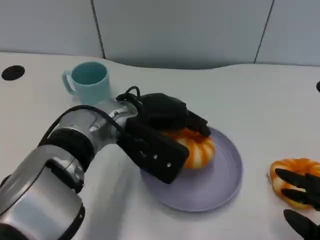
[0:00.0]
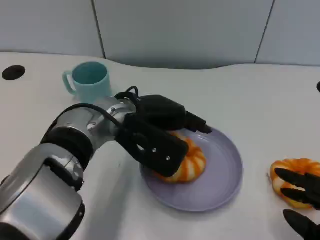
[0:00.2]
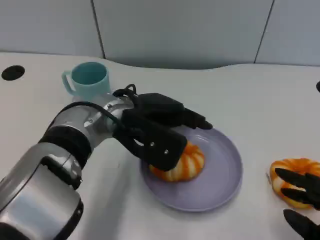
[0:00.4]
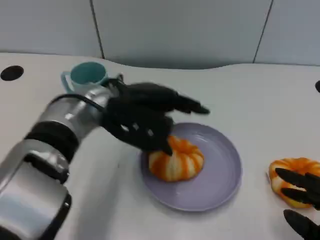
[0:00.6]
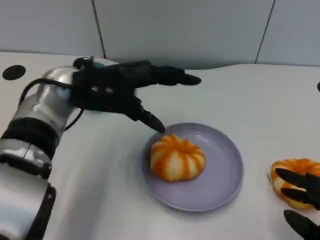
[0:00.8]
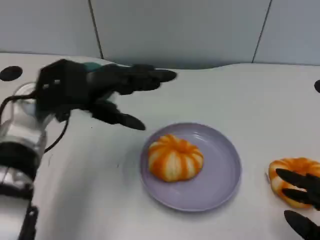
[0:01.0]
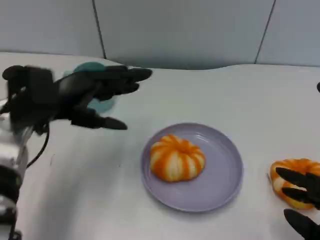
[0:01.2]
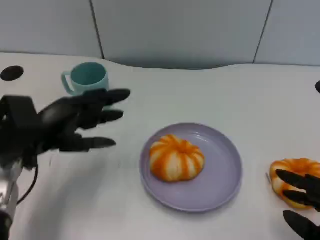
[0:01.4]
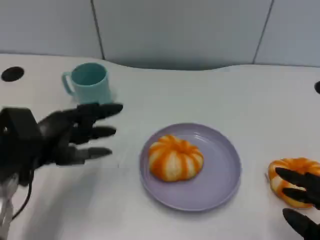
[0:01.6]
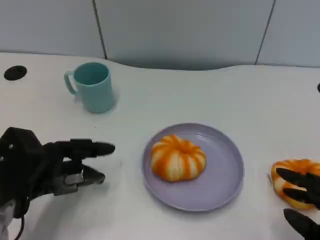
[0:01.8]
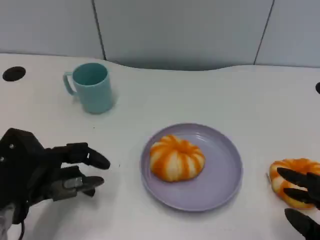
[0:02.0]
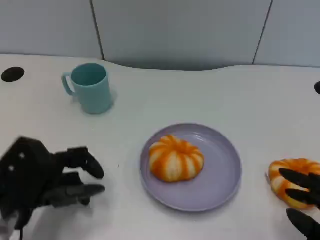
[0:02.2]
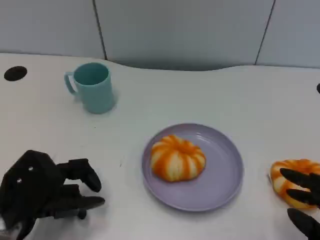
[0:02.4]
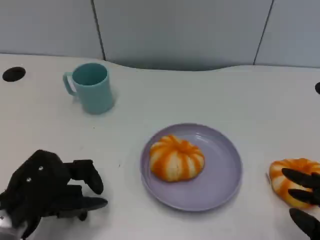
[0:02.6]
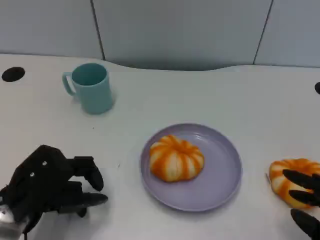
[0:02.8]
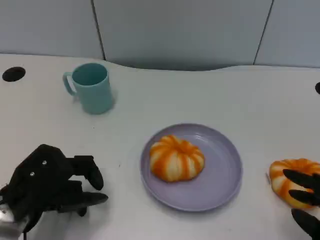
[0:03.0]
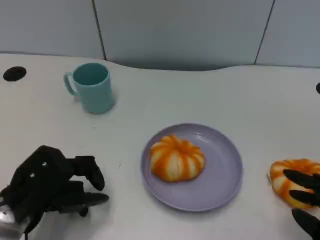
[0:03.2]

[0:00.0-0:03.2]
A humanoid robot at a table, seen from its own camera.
Task of the whole recording: Grasp the bread from the table and place it into the plate.
0:00.0 to 0:01.6: The left hand shifts about 20 cm to the left and backward.

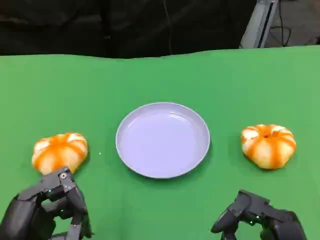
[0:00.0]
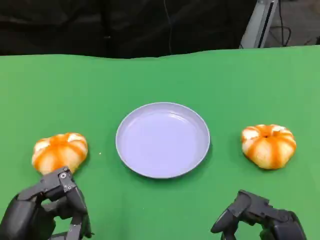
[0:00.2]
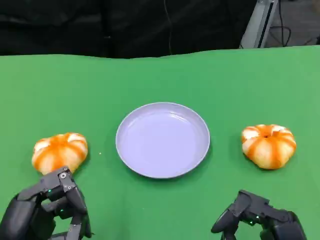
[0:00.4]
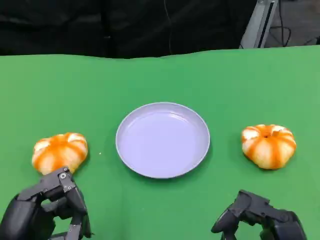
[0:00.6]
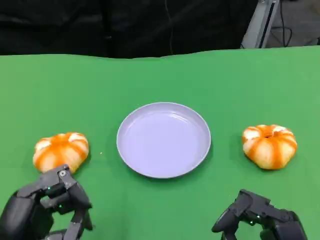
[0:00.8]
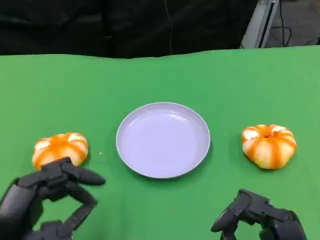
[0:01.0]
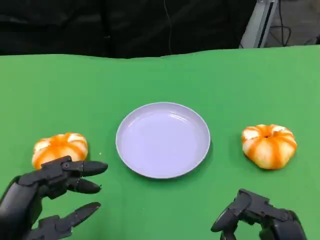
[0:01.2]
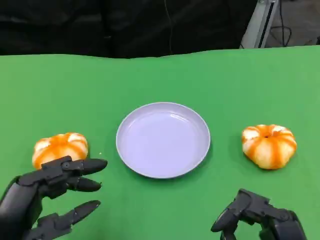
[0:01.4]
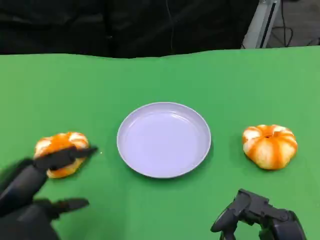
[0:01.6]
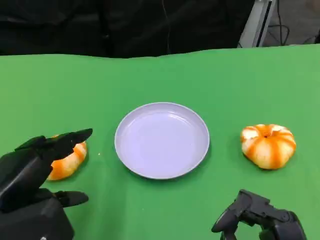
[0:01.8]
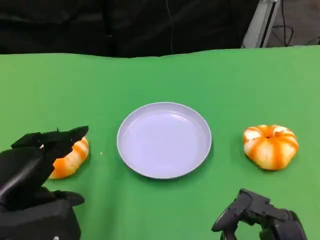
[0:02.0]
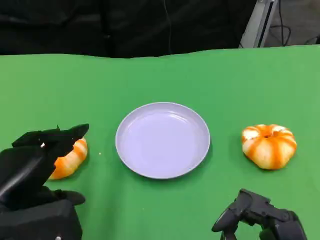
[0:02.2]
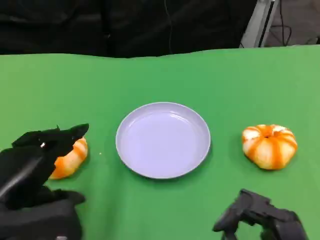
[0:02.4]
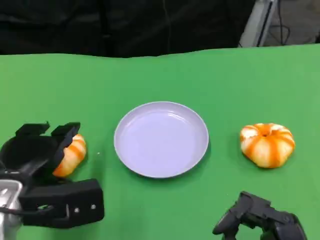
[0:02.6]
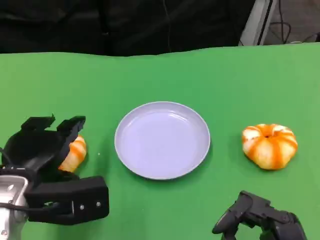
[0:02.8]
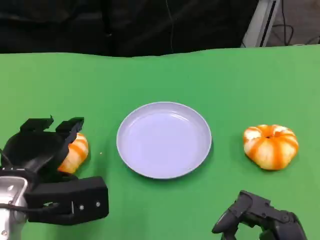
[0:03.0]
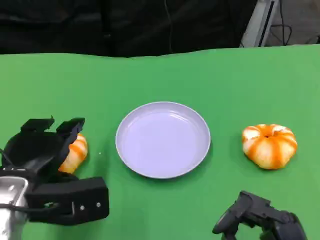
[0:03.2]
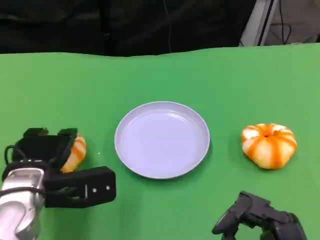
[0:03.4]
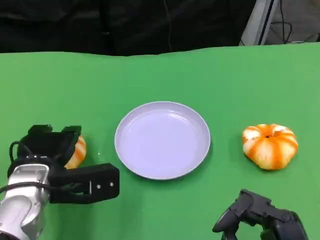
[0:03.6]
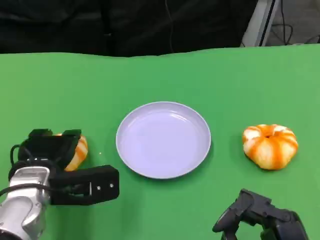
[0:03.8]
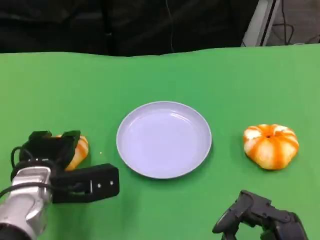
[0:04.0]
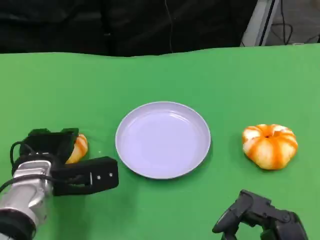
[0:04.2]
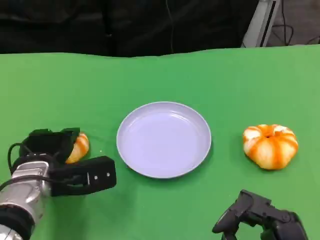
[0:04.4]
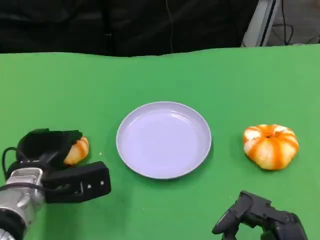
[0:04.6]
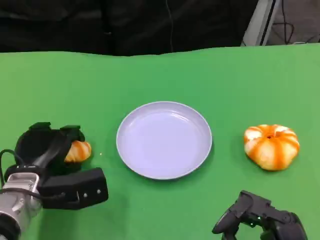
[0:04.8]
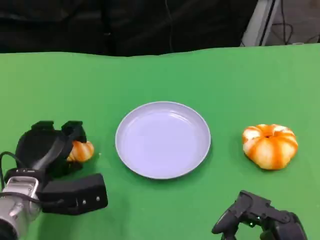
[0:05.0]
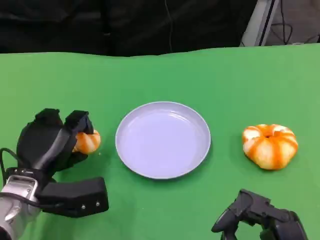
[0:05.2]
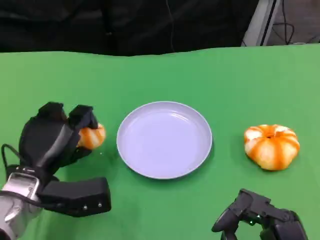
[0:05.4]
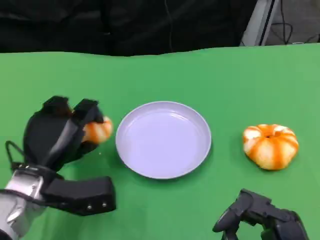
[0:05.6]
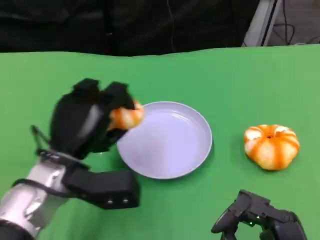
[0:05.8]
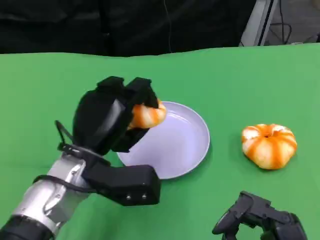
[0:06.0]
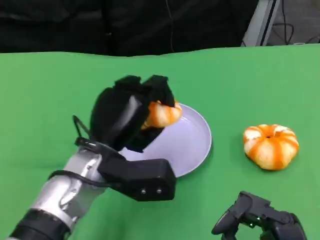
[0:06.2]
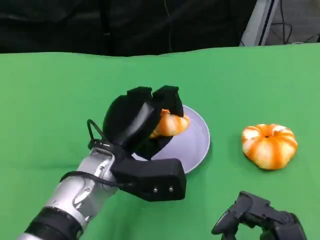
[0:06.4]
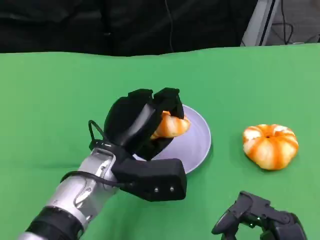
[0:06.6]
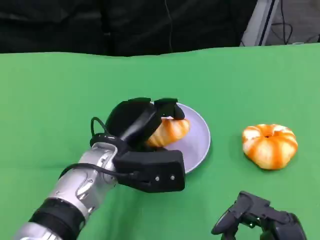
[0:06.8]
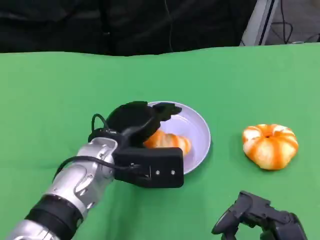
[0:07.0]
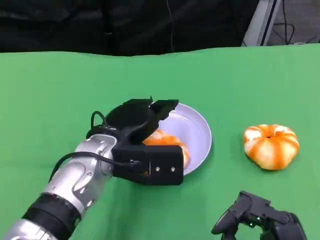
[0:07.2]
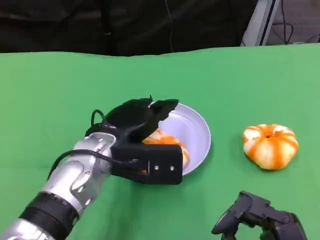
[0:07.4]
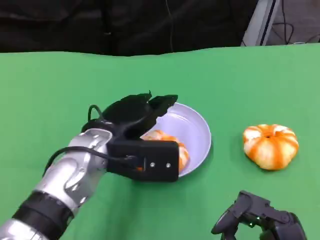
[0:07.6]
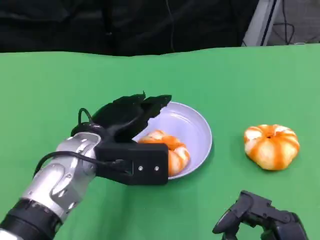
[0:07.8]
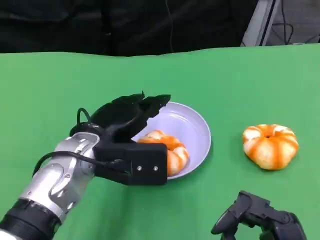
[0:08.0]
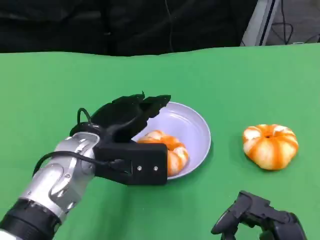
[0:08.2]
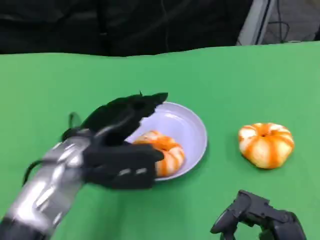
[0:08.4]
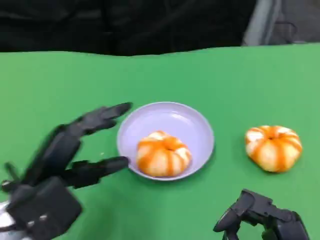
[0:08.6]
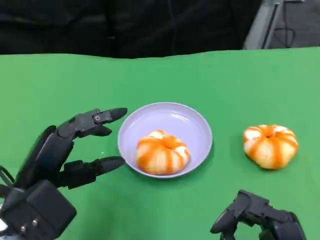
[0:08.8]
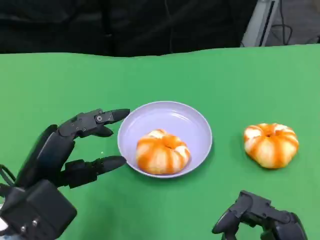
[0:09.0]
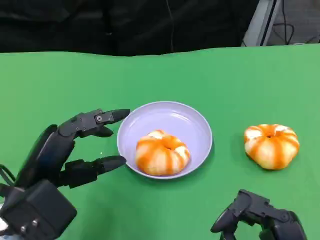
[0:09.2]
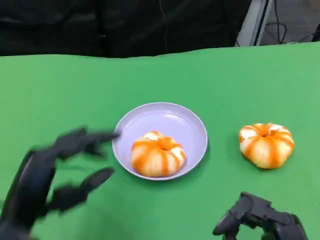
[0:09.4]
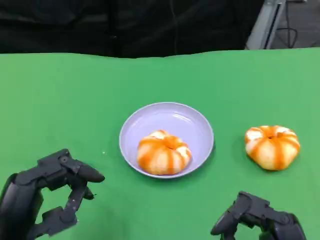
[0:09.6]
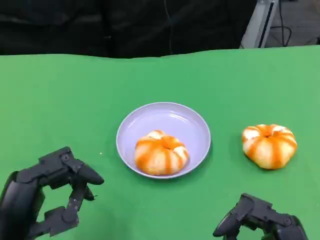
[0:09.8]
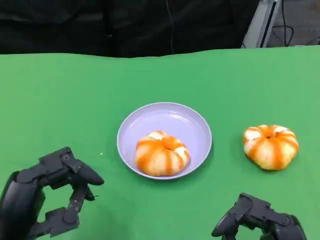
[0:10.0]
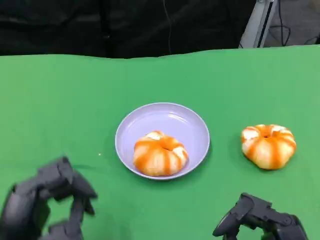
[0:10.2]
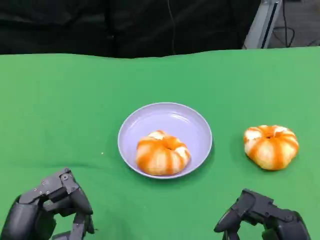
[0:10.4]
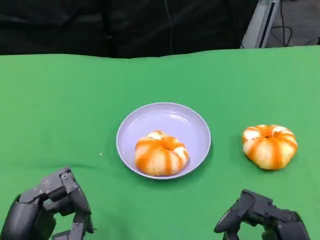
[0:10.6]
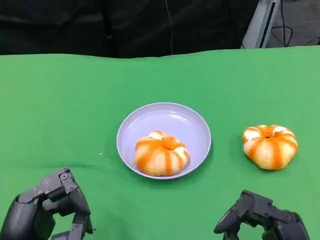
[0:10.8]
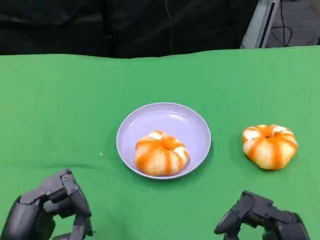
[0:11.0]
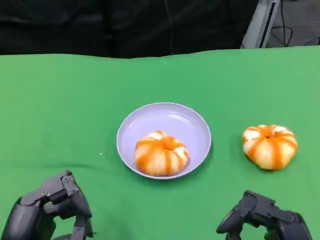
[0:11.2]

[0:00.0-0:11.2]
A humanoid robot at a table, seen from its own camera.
Task of the whole recording: Grasp the bread from the table and place it into the plate.
0:00.0 to 0:01.6: The left hand changes place by some 5 cm.
0:01.6 to 0:03.2: The left hand is displaced forward by about 10 cm.
0:03.2 to 0:04.8: The left hand goes about 5 cm downward.
0:04.8 to 0:06.4: The left hand moves to the right and upward, approximately 15 cm.
0:08.0 to 0:09.6: The left hand is displaced backward and to the left by about 20 cm.
0:09.6 to 0:11.2: The hands make only small movements.
